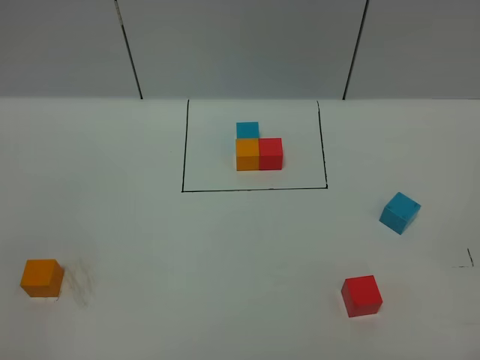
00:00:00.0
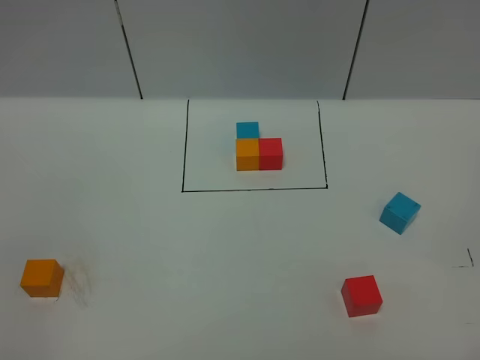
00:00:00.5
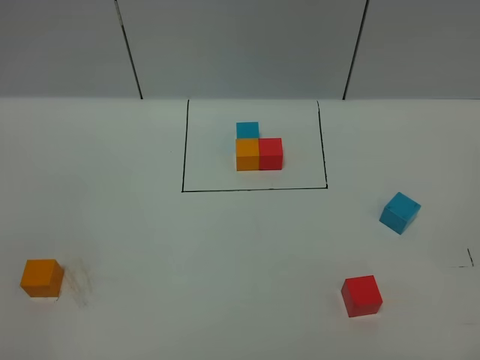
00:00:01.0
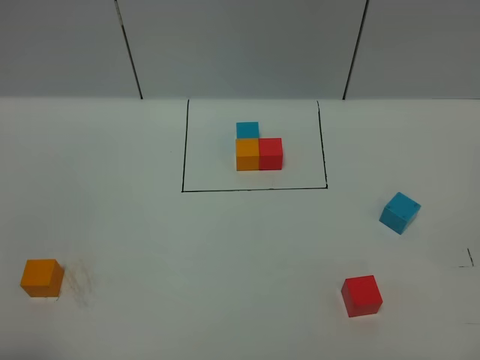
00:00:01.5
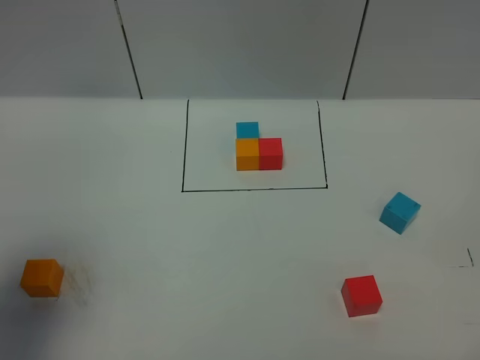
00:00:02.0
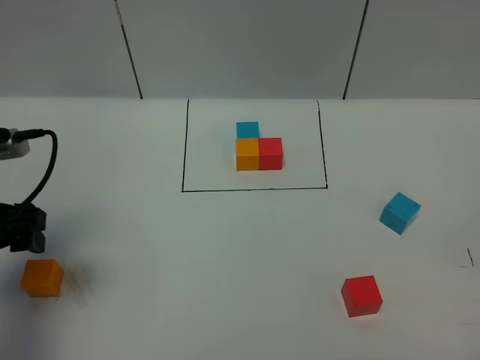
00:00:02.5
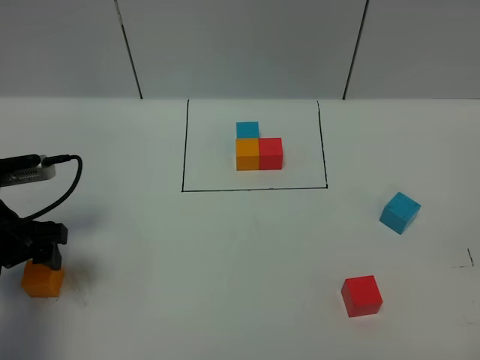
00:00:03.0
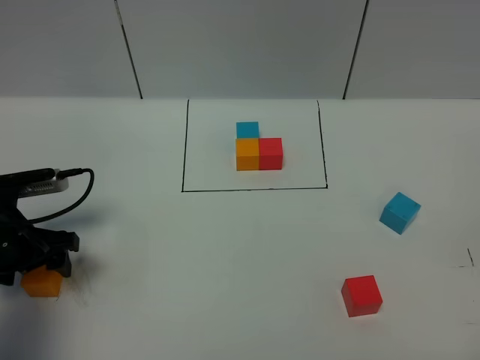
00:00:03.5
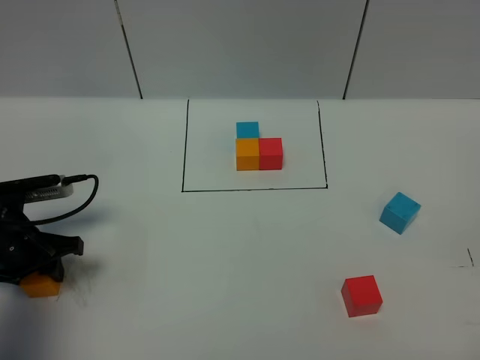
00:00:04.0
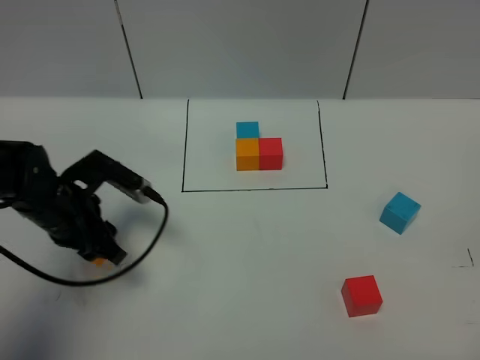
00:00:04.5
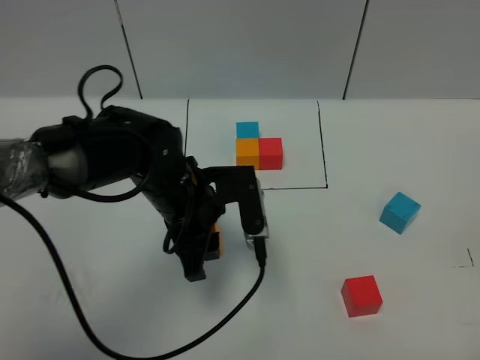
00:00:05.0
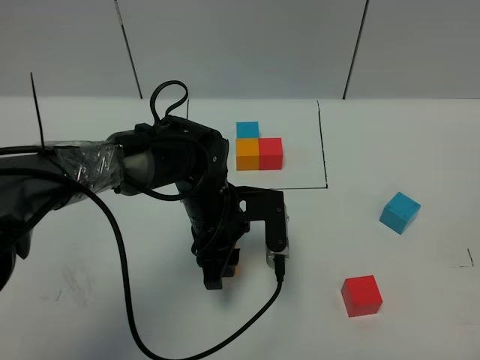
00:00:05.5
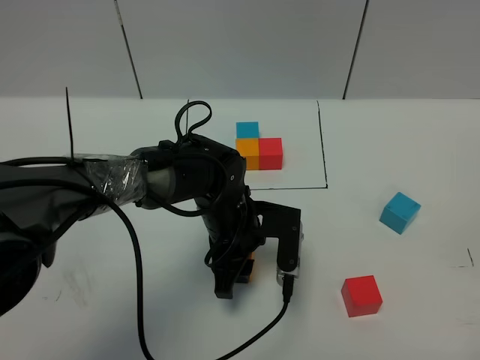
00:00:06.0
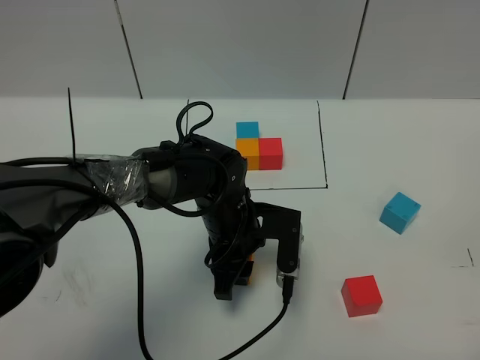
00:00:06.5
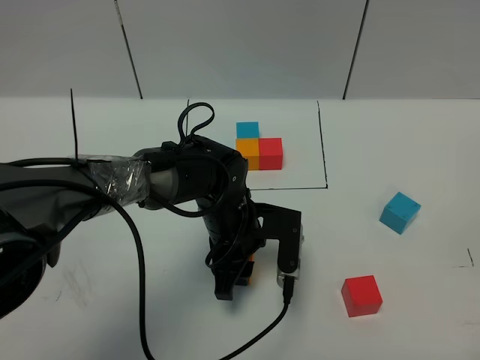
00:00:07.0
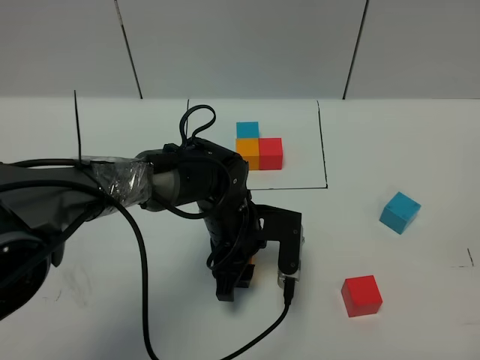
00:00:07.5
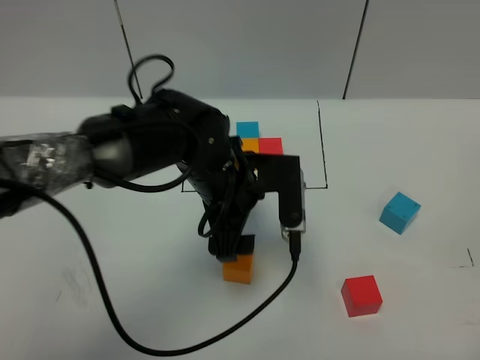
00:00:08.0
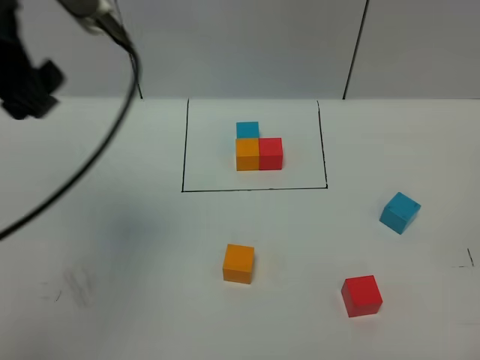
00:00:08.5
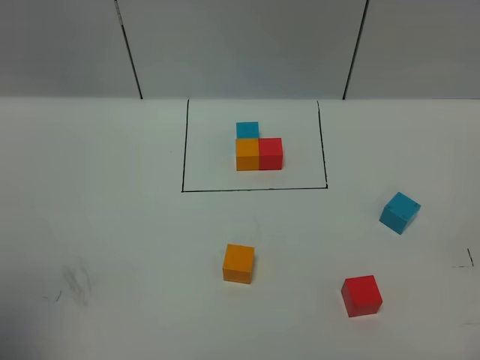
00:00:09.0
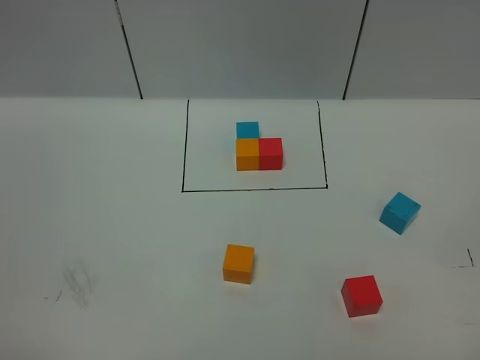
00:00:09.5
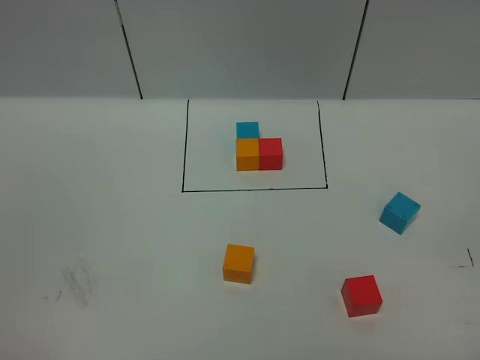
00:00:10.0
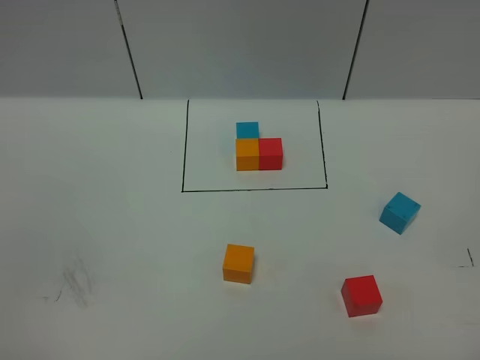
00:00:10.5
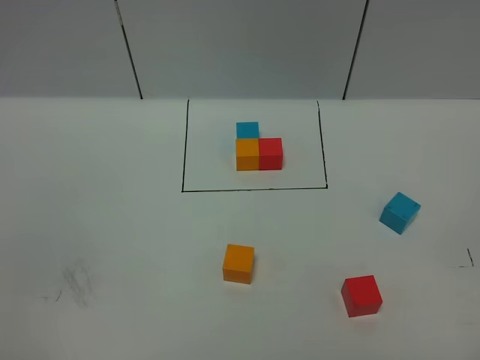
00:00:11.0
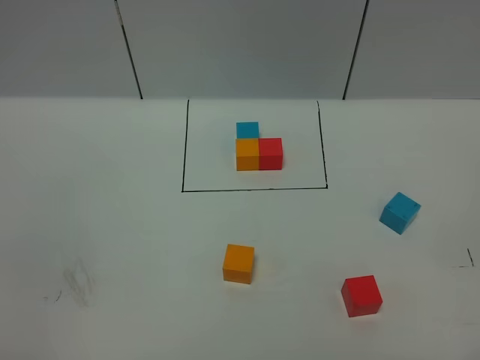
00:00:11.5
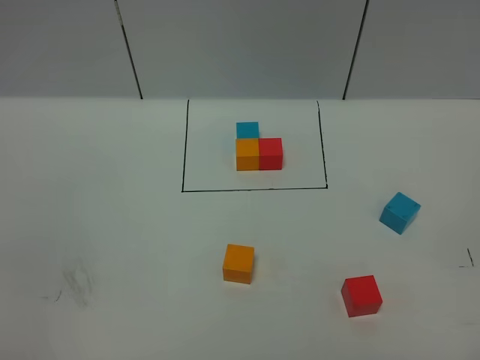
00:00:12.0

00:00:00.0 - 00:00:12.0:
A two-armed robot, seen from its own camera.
Task of the whole recording: According to the building block template in front, assemble the scattered blocks together.
Step, 00:00:02.0 - 00:00:07.5: Put the orange cube in the center of the table.
00:00:00.0 - 00:00:02.0: The left gripper goes about 20 cm forward, and opens.
00:00:02.0 - 00:00:04.0: The left gripper moves downward and forward, approximately 20 cm, and closes.
00:00:04.0 - 00:00:06.0: The left gripper travels to the right by some 30 cm.
00:00:06.0 - 00:00:08.0: The left gripper travels upward by roughly 10 cm, and opens up.
00:00:08.0 - 00:00:10.0: The left gripper shifts some 50 cm backward and to the left.

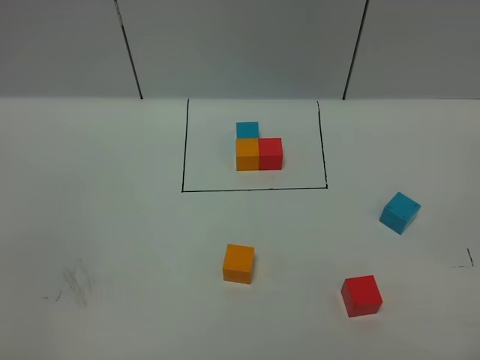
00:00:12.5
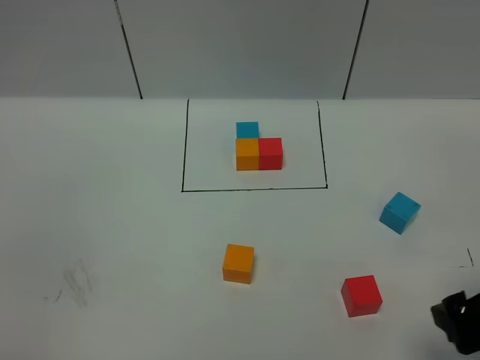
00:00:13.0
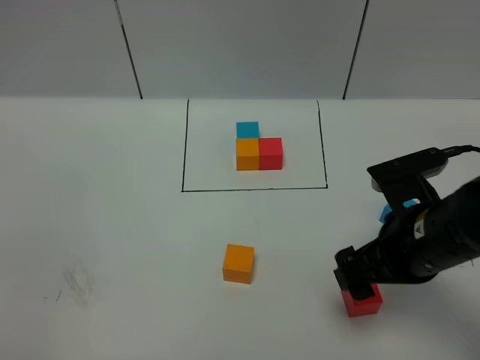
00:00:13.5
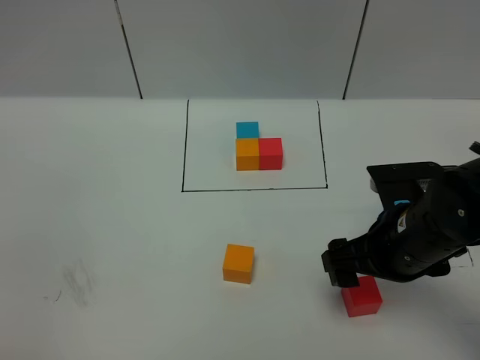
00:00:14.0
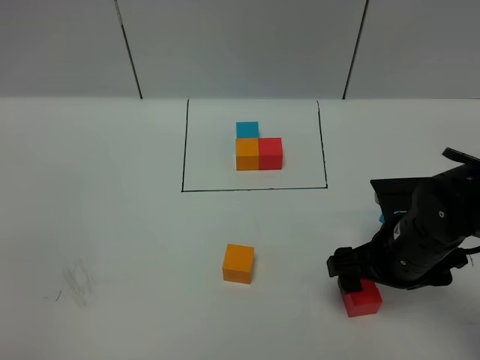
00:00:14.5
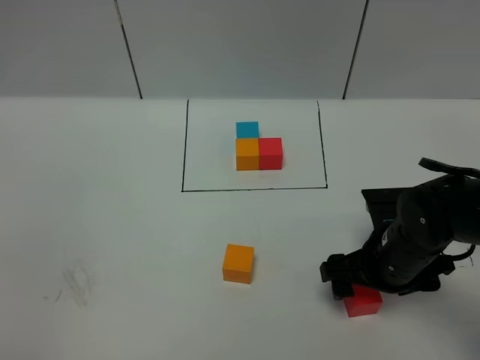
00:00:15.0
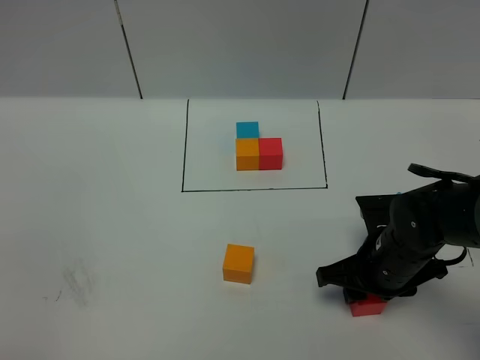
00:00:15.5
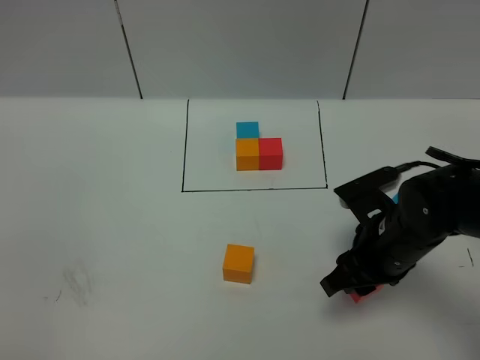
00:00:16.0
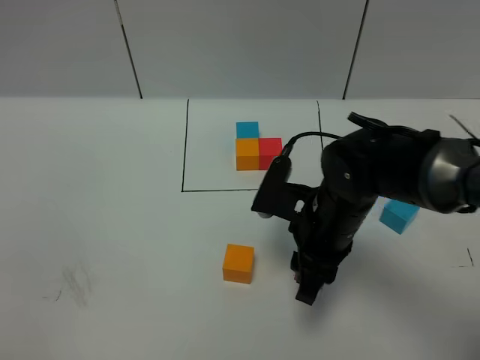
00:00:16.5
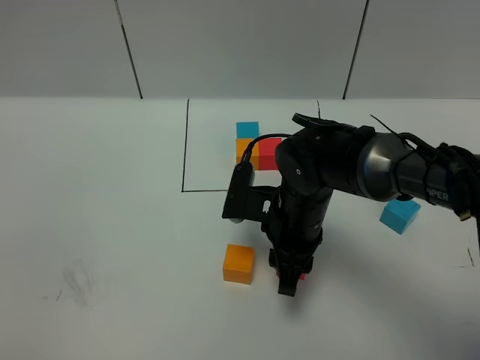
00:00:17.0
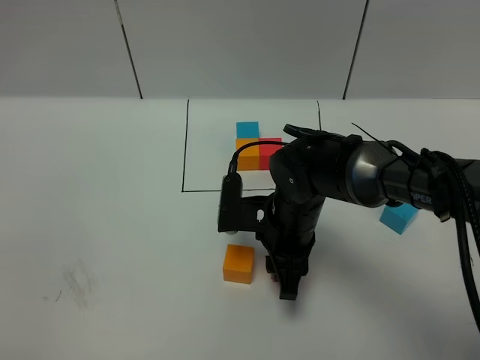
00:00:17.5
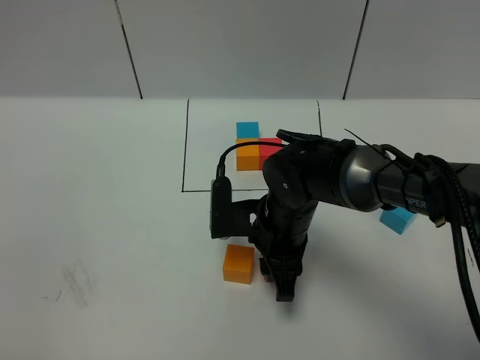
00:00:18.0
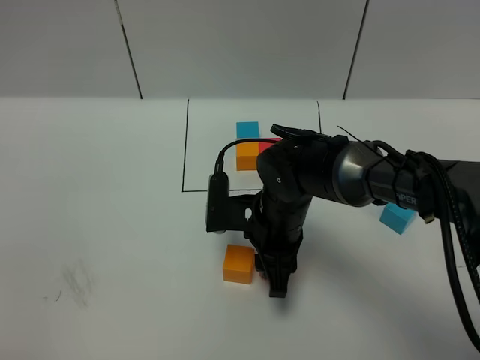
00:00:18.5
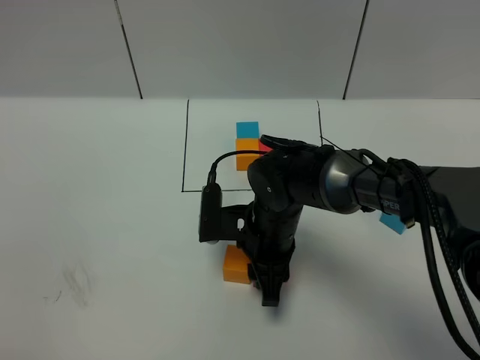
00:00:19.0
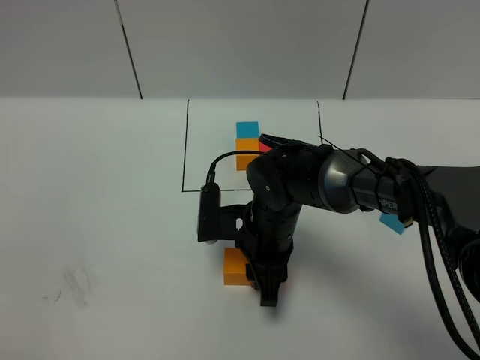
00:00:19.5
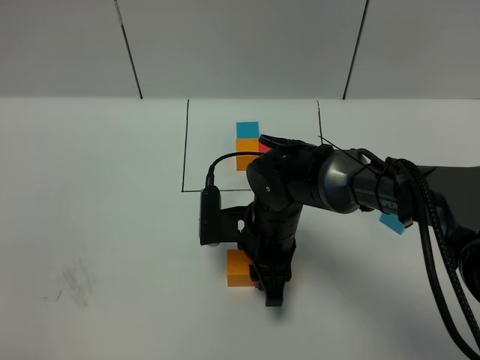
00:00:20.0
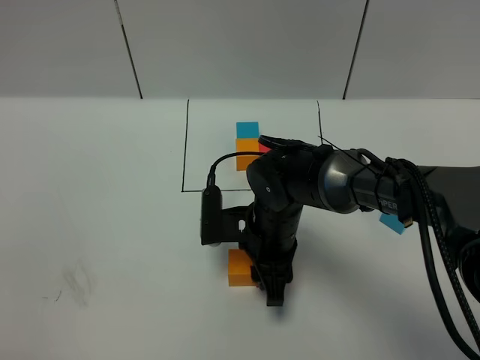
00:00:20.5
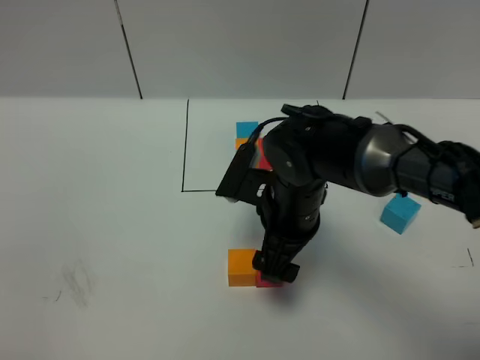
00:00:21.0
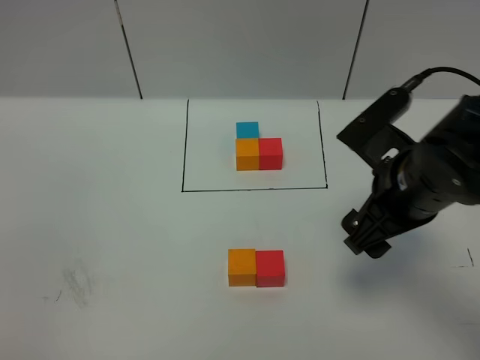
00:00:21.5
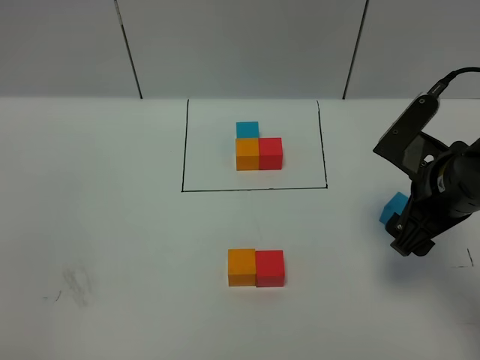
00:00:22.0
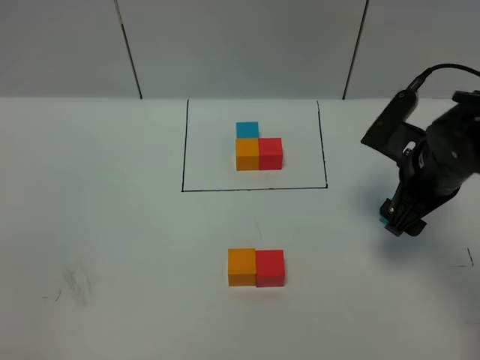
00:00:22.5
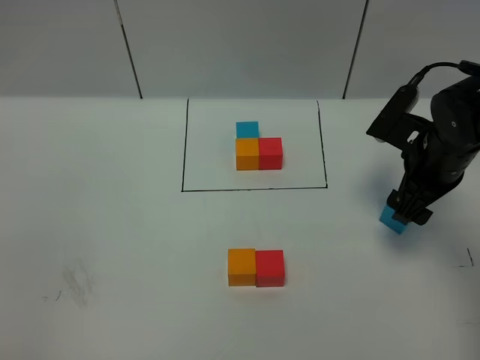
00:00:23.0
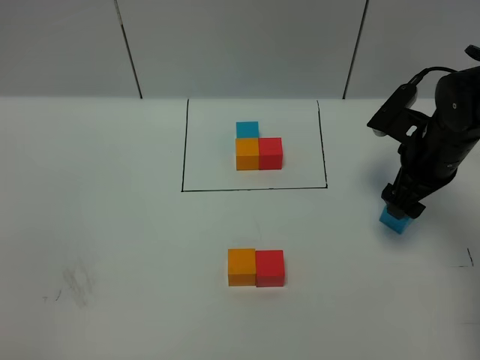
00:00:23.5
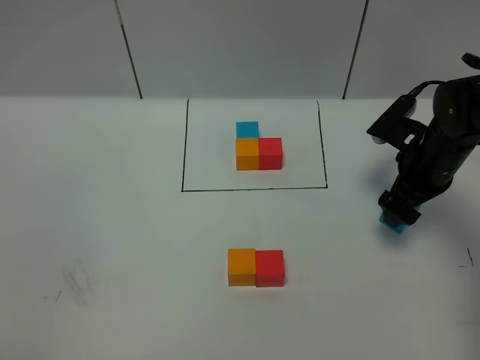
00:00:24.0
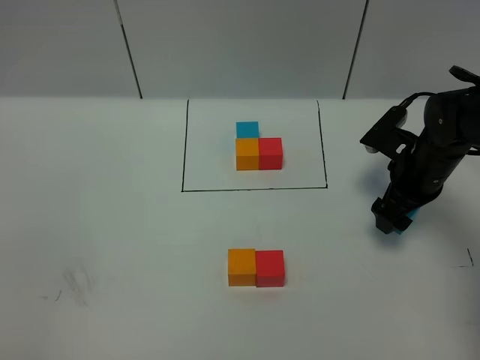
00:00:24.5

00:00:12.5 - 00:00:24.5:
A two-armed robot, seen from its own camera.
Task of the whole recording: According to the building block template in front, assemble the scattered blocks together.
Step, 00:00:12.5 - 00:00:20.5: Put the red cube on the right of the orange cube.
00:00:12.5 - 00:00:14.5: The right gripper moves forward, to the left and downward, roughly 25 cm.
00:00:14.5 - 00:00:16.5: The right gripper moves to the left, some 10 cm, and closes.
00:00:16.5 - 00:00:18.5: The right gripper heads to the left, covering about 5 cm.
00:00:18.5 - 00:00:20.5: The grippers stay close to where they were, moving slightly.
00:00:20.5 - 00:00:22.5: The right gripper moves to the right and upward, approximately 20 cm, and opens.
00:00:22.5 - 00:00:24.5: The right gripper heads downward and forward, covering about 10 cm.

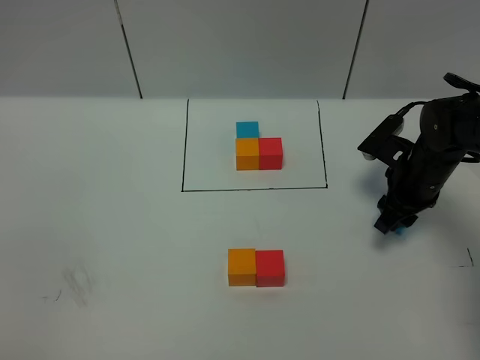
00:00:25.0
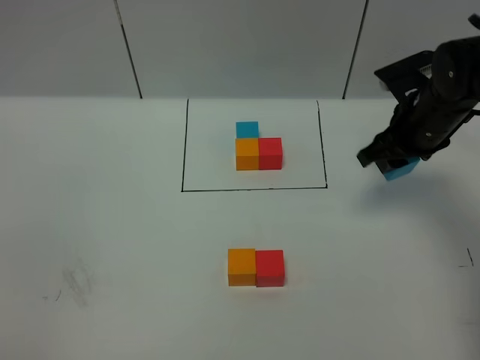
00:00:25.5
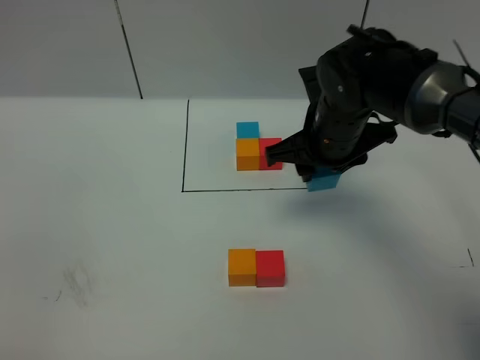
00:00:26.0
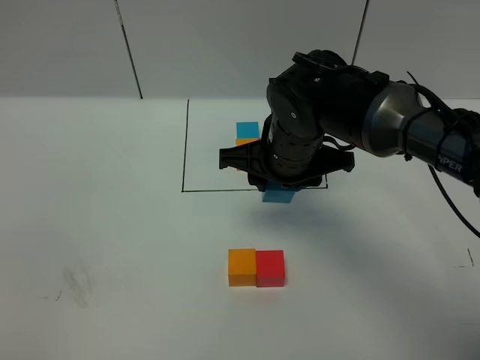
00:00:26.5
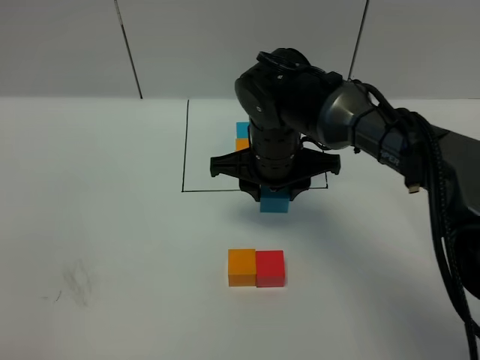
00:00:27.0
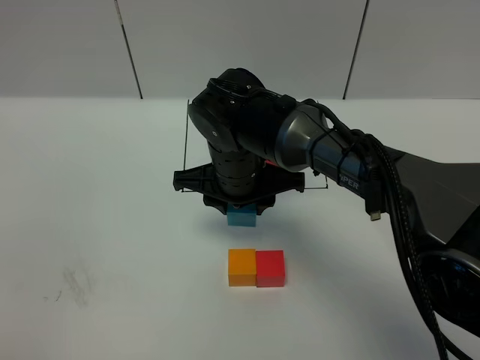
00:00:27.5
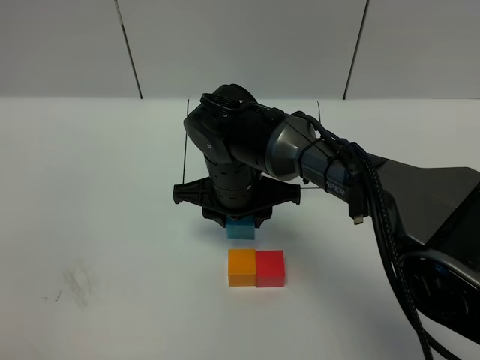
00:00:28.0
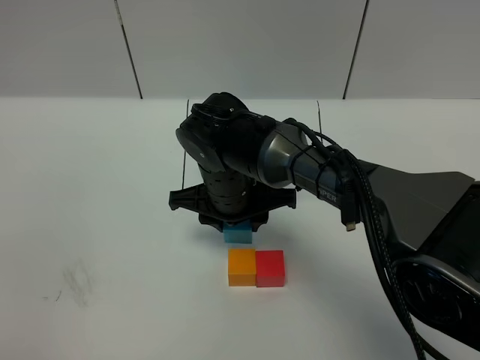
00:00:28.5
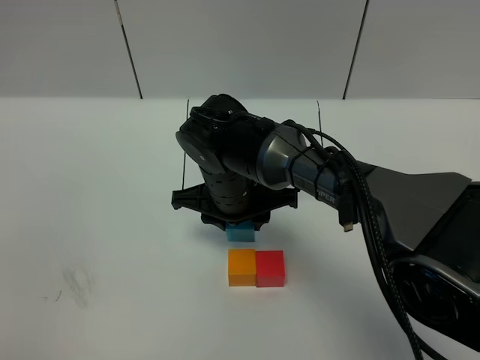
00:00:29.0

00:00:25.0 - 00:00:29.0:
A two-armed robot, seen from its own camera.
Task of the whole recording: According to the building block template in front, assemble the scattered blocks together.
00:00:25.0 - 00:00:27.0: The right gripper travels to the left by approximately 20 cm.
00:00:27.0 - 00:00:29.0: The right gripper changes place by approximately 5 cm.
